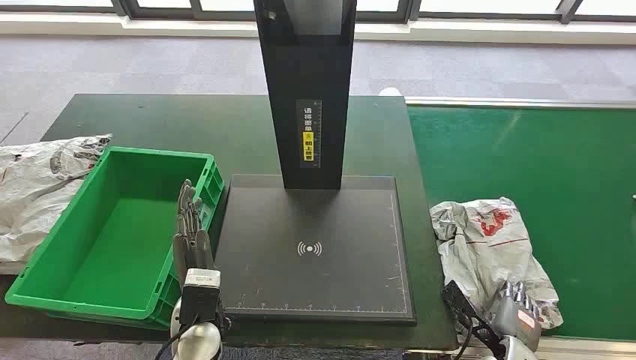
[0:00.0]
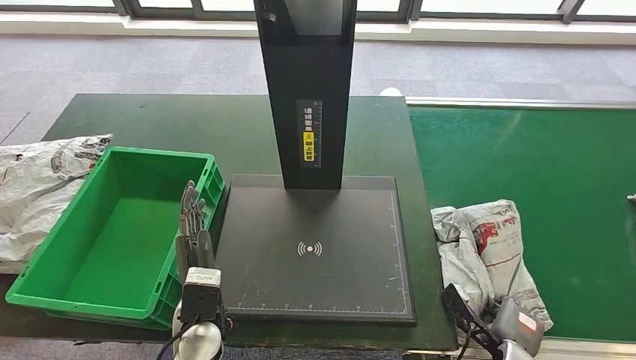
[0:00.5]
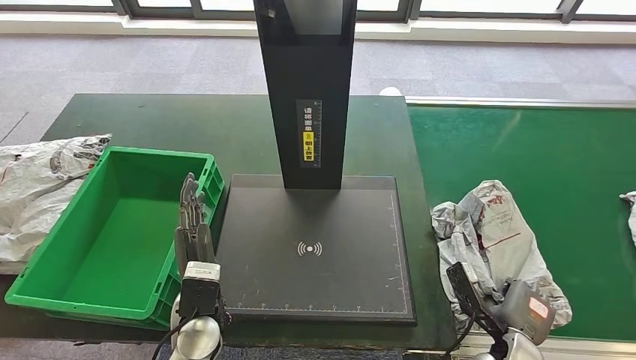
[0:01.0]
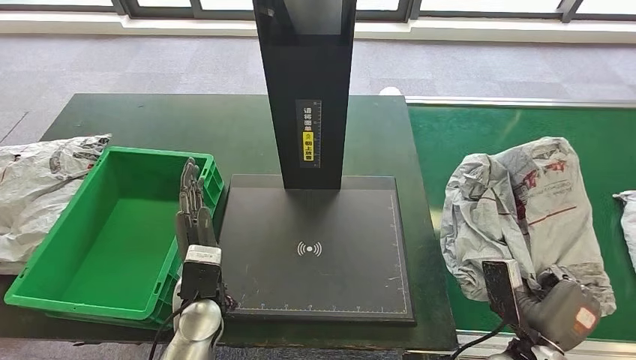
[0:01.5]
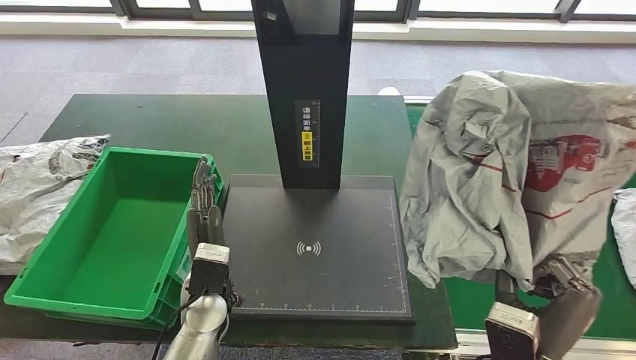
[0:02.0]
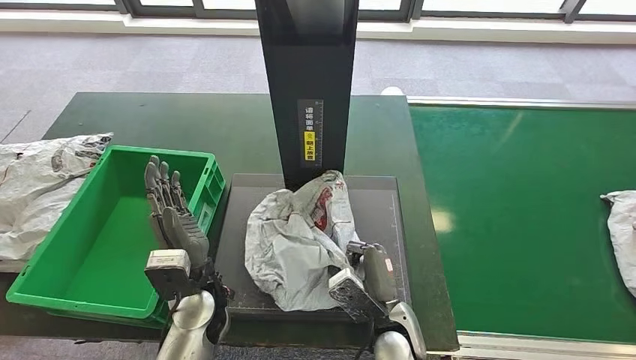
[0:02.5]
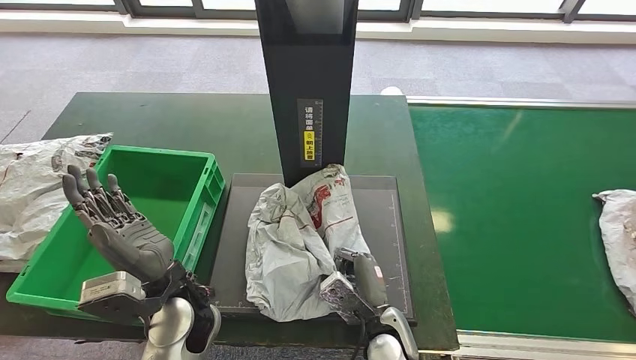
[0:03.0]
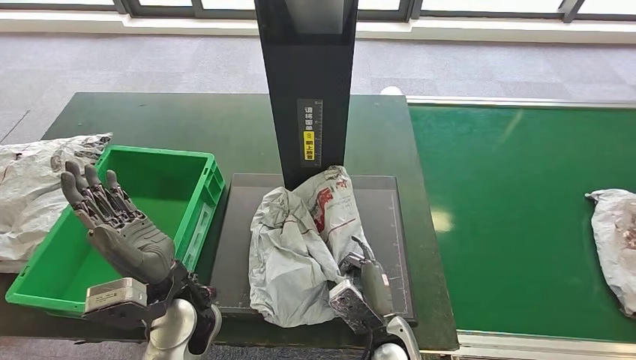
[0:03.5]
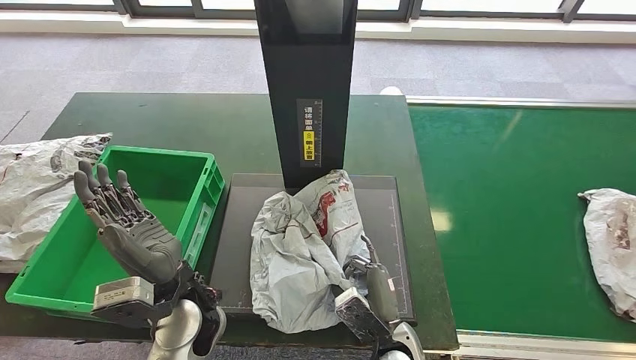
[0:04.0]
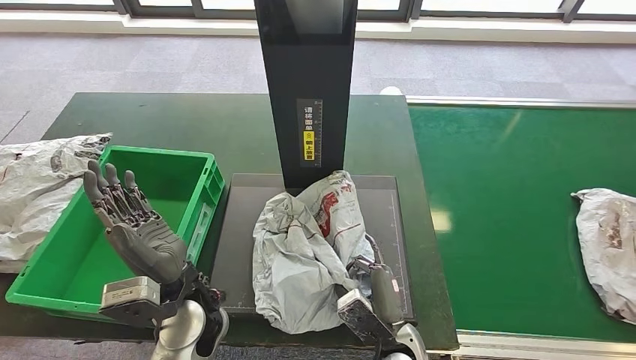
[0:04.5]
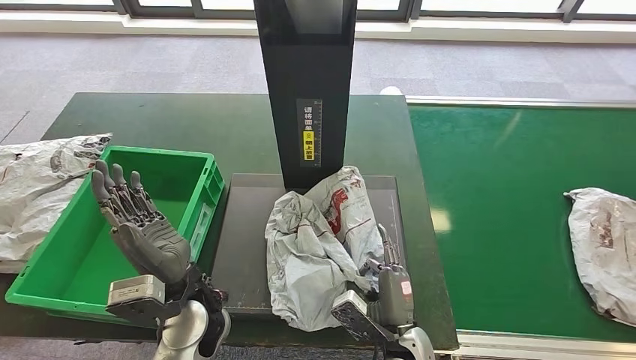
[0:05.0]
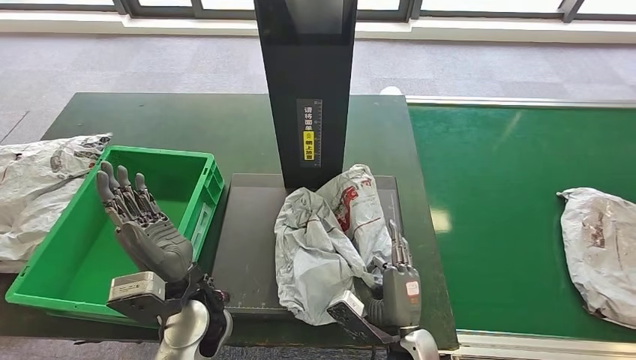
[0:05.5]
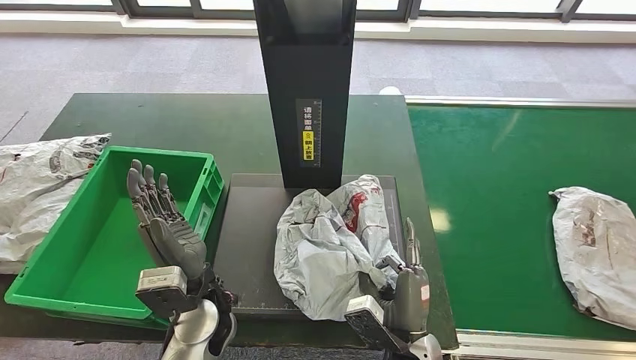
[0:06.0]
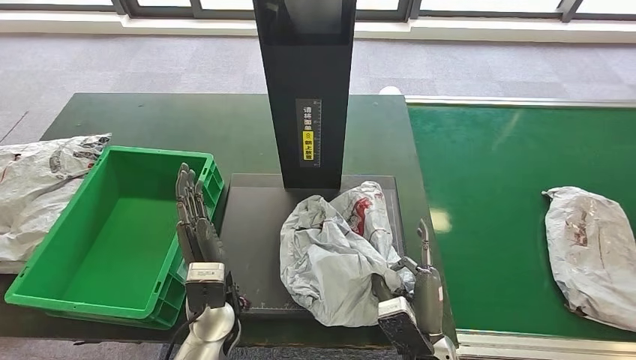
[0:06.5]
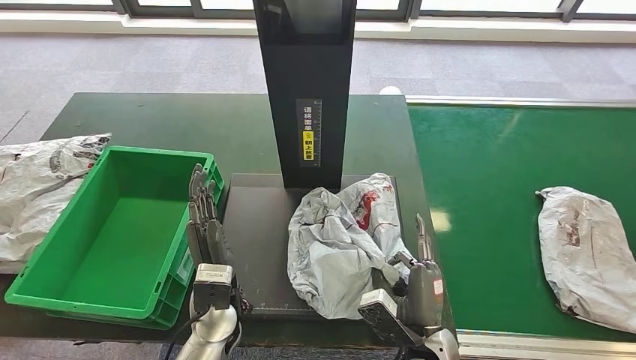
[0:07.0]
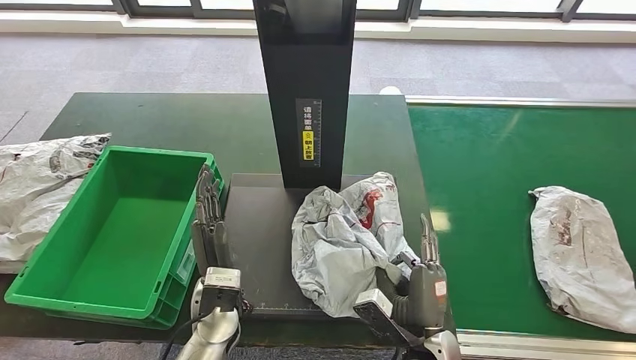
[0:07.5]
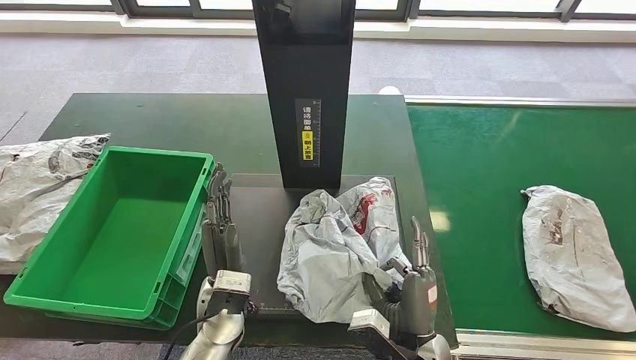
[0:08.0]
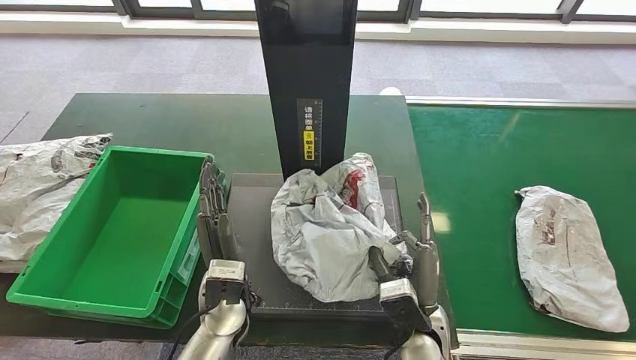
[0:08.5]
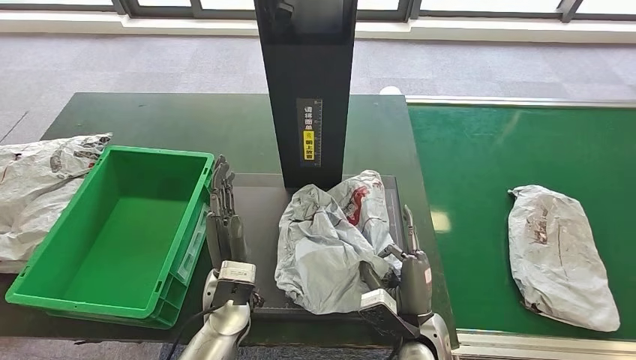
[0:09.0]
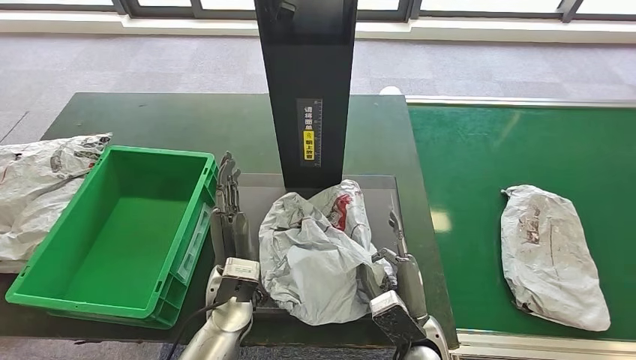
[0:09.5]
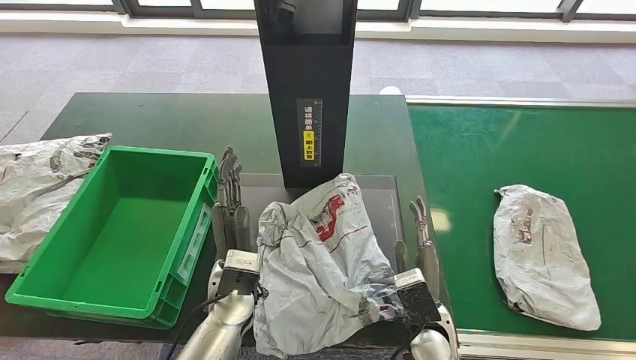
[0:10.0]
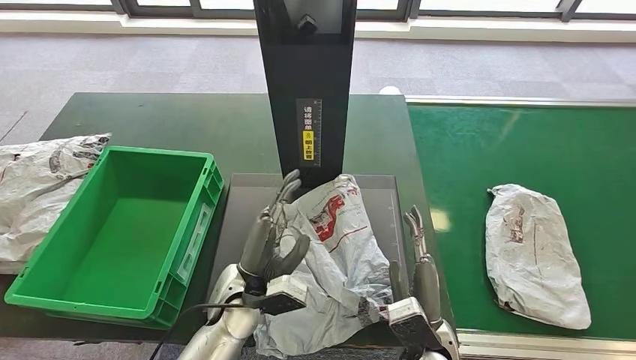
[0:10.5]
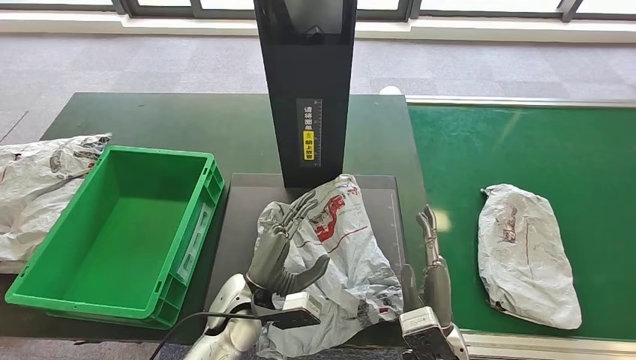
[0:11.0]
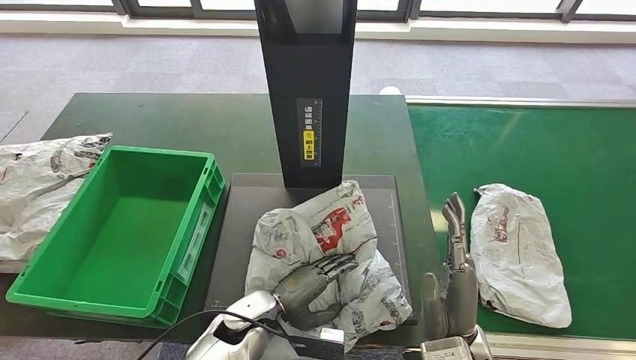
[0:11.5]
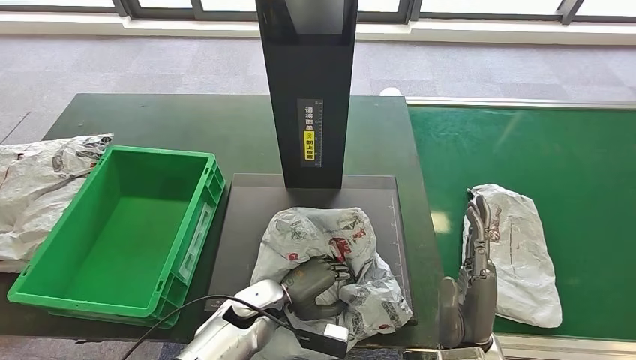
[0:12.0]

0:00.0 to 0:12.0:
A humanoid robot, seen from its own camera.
Step, 0:00.0 to 0:01.5: Take the parcel off the conveyor belt.
Step, 0:02.5 to 0:11.5: Place the parcel onto the inbound machine.
0:06.0 to 0:08.0: The hands stay close to where they were, moving slightly.
0:08.0 to 0:10.0: The right hand shifts by some 5 cm.

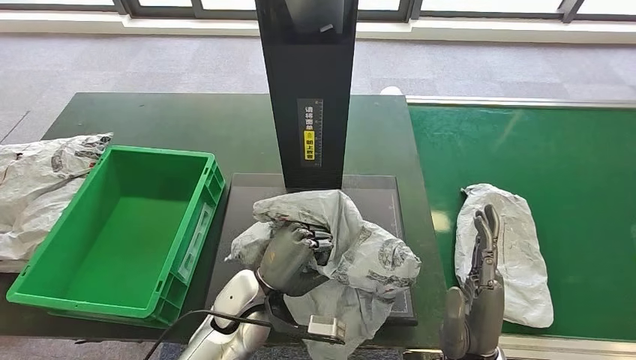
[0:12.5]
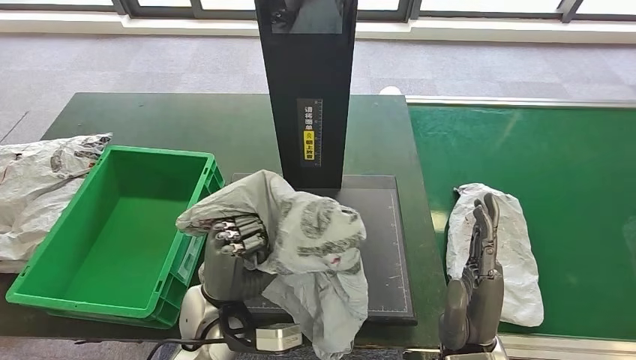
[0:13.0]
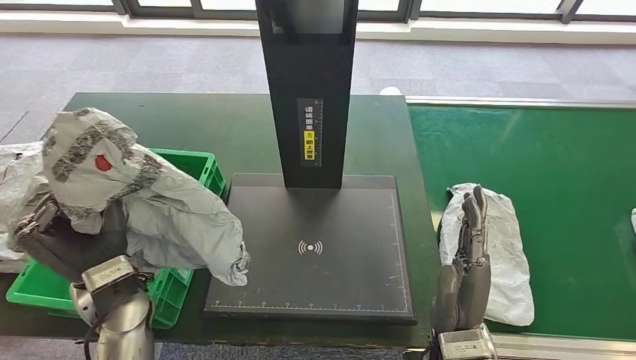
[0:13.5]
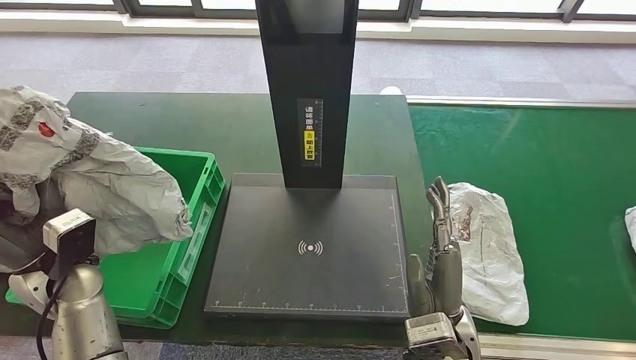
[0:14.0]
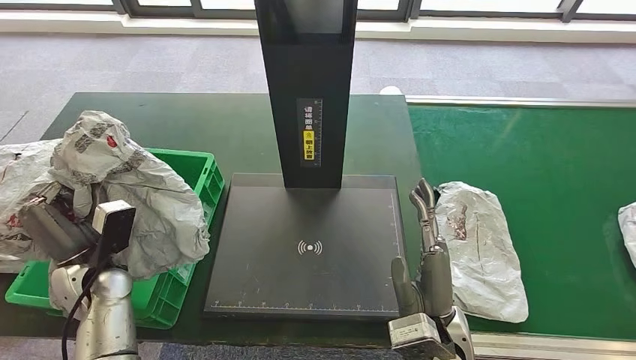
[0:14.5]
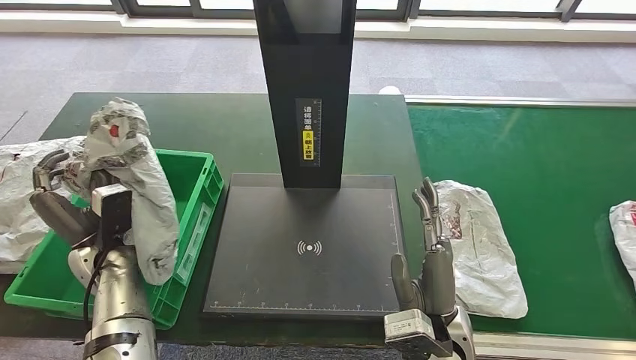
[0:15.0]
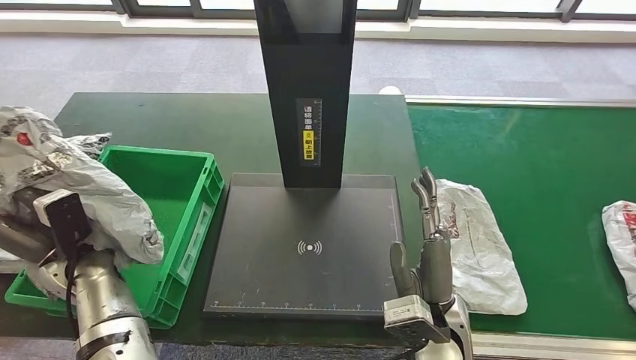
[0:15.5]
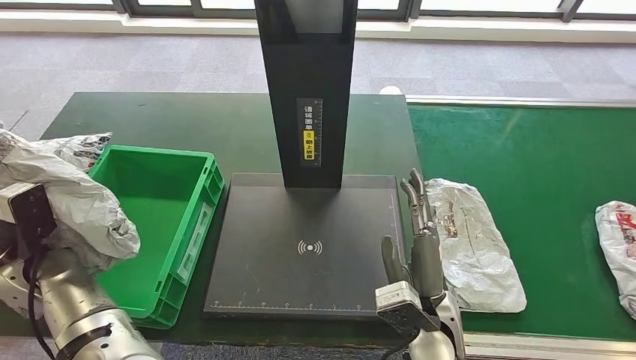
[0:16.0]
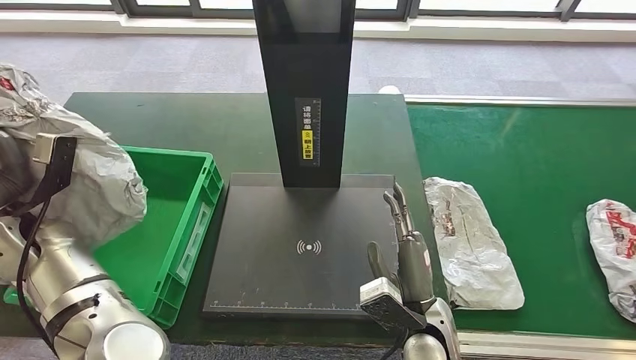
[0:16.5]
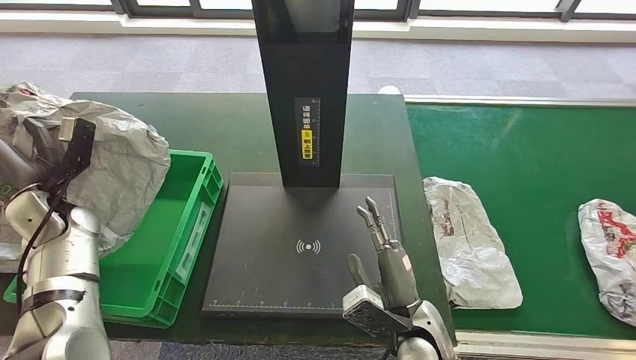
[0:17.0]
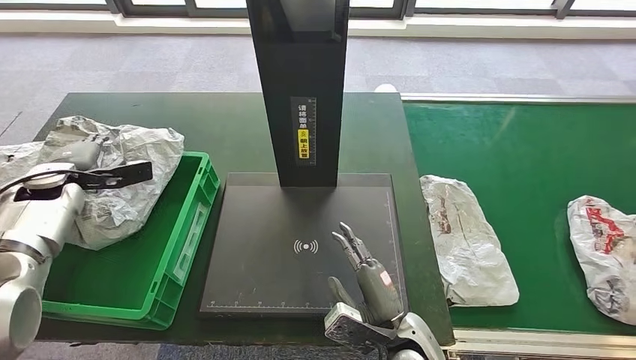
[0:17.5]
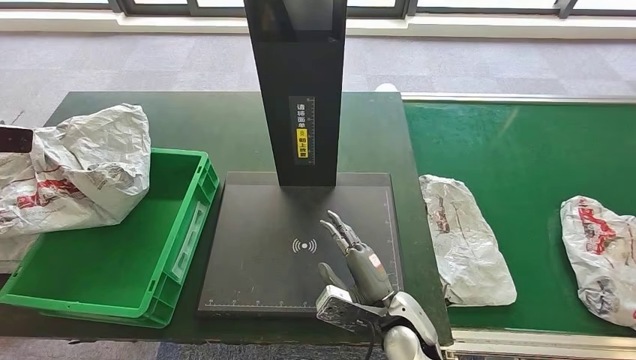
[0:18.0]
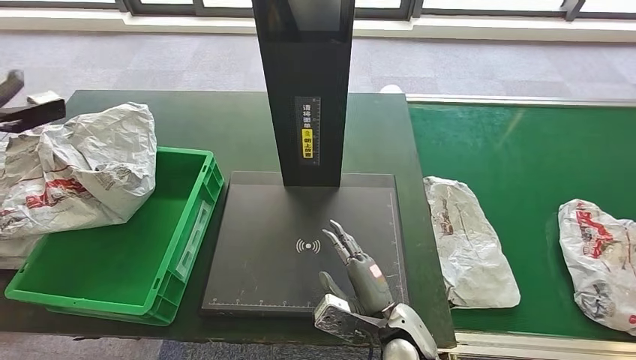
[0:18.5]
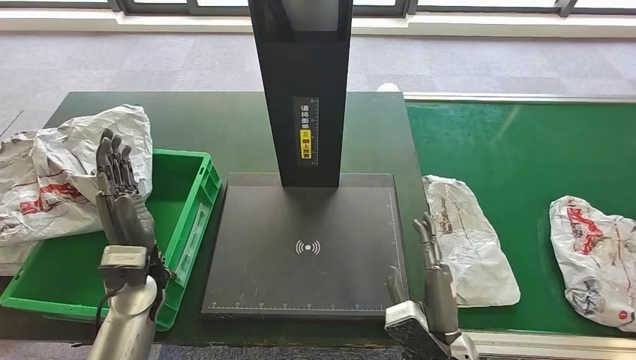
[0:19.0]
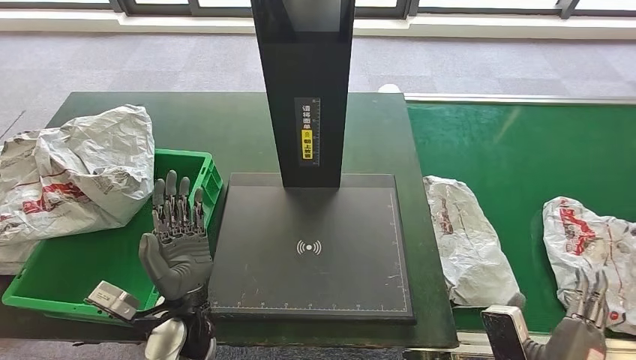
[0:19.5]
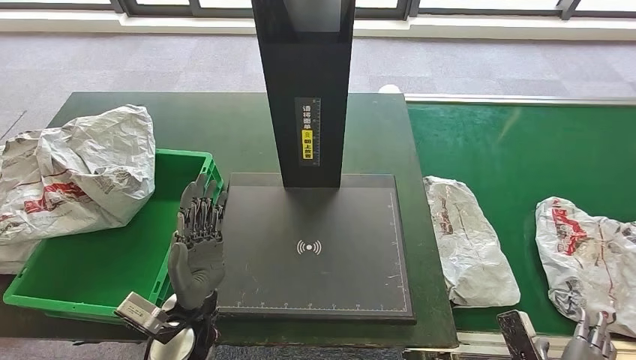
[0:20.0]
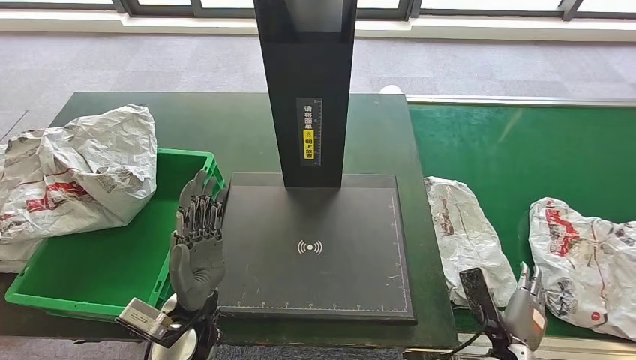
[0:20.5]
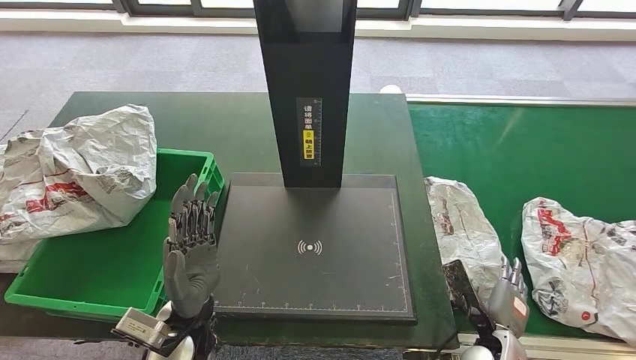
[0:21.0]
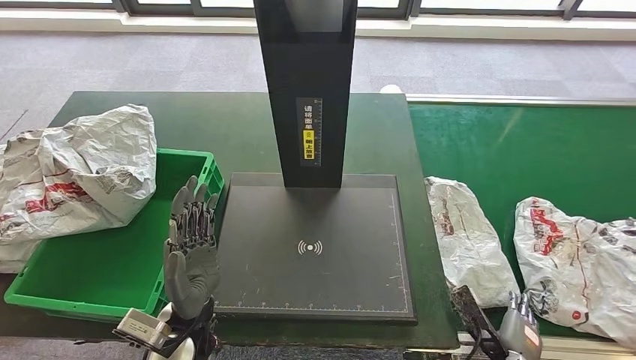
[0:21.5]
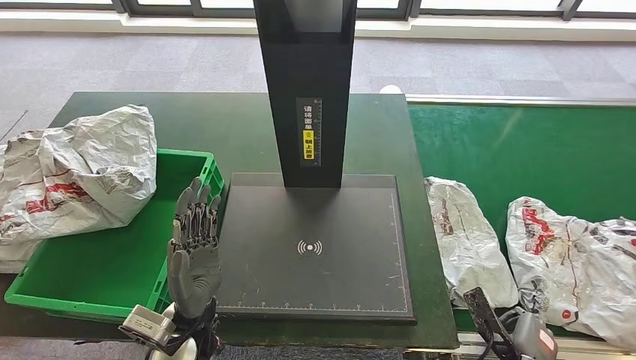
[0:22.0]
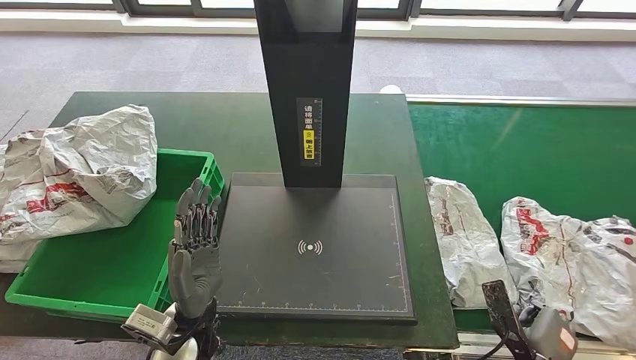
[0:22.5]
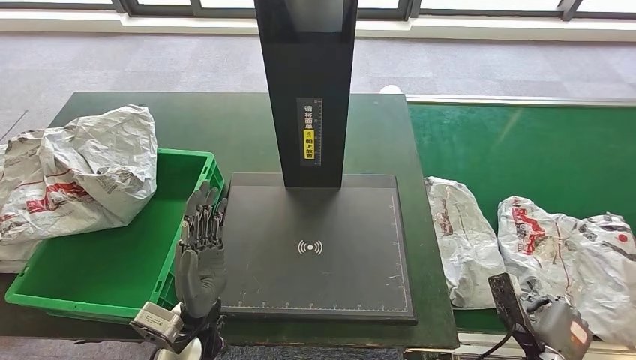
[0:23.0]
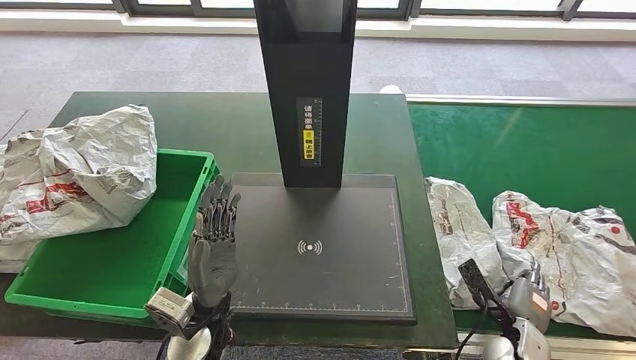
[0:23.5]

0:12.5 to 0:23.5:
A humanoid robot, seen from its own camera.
Step, 0:14.0 to 0:18.5: Put the parcel inside the courier box.
0:14.5 to 0:16.0: The left hand heads to the left, covering approximately 5 cm.
0:20.0 to 0:21.5: The right hand travels forward by about 5 cm.
0:21.5 to 0:23.5: The right hand goes approximately 5 cm forward.
